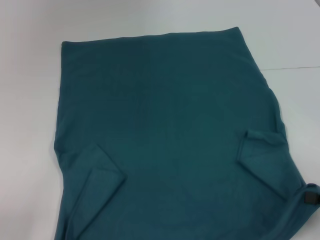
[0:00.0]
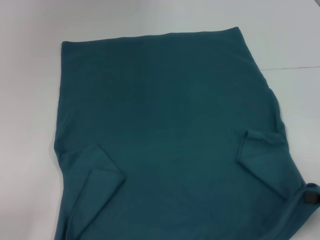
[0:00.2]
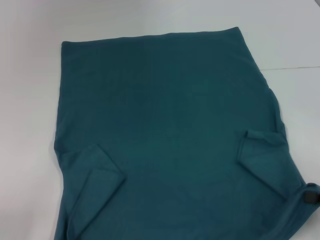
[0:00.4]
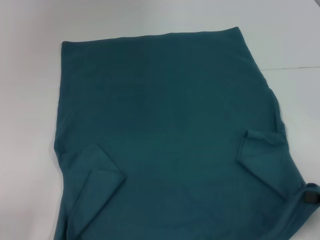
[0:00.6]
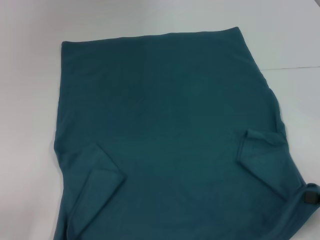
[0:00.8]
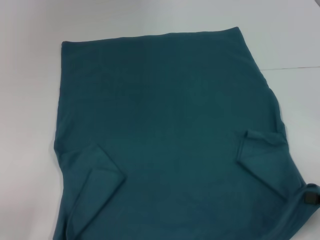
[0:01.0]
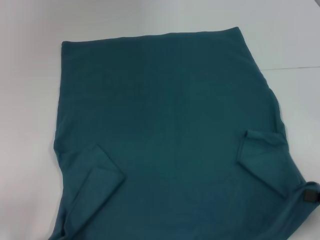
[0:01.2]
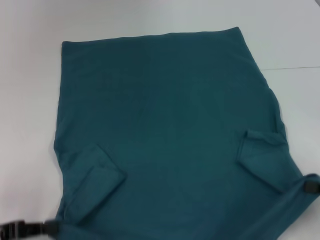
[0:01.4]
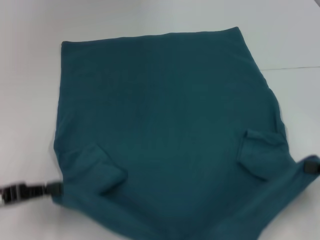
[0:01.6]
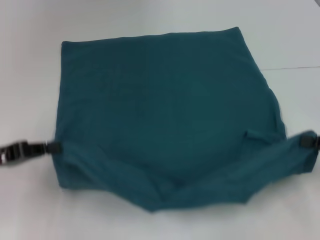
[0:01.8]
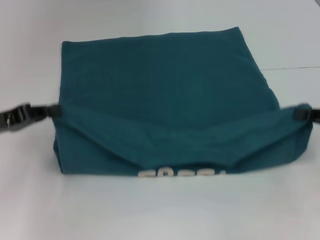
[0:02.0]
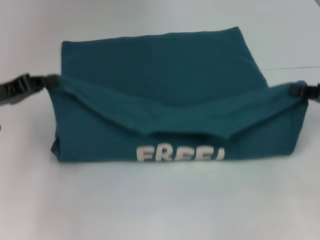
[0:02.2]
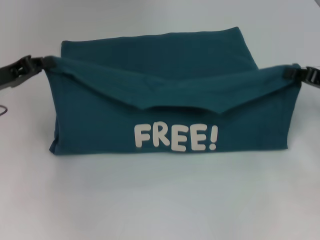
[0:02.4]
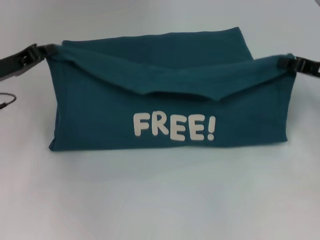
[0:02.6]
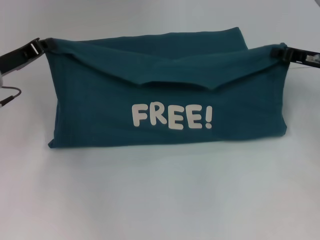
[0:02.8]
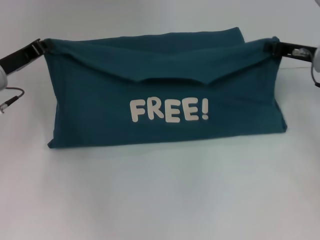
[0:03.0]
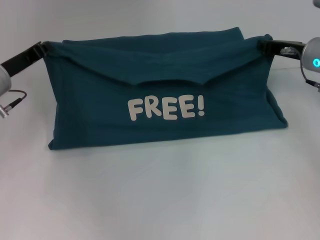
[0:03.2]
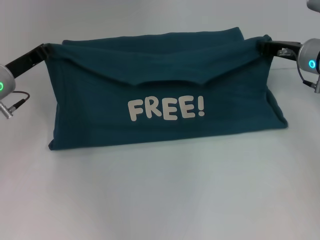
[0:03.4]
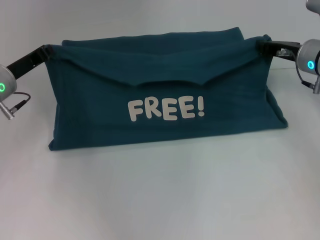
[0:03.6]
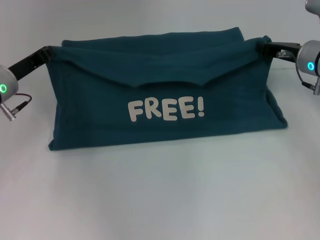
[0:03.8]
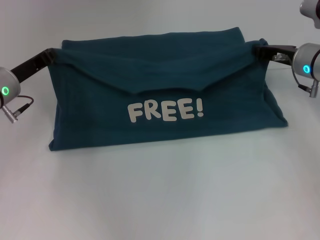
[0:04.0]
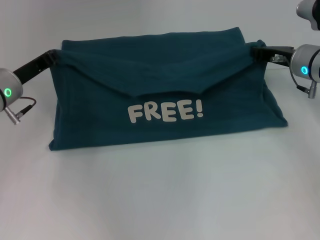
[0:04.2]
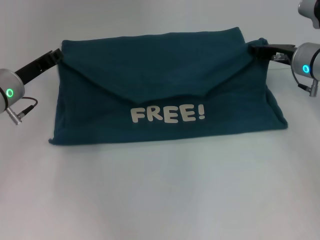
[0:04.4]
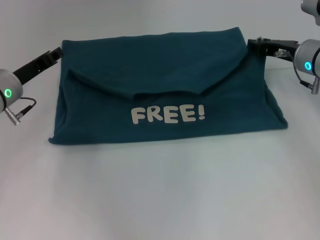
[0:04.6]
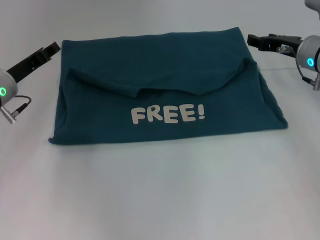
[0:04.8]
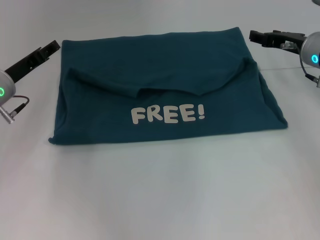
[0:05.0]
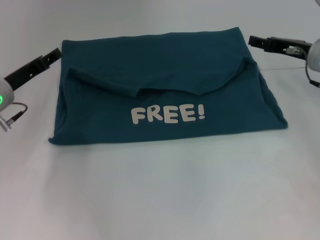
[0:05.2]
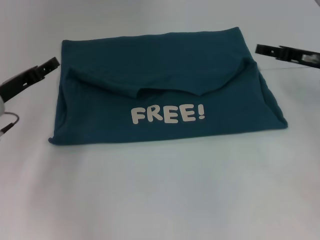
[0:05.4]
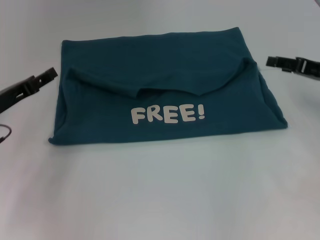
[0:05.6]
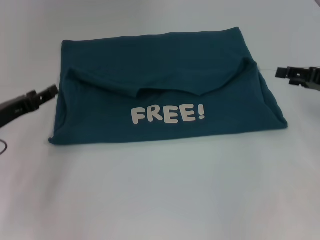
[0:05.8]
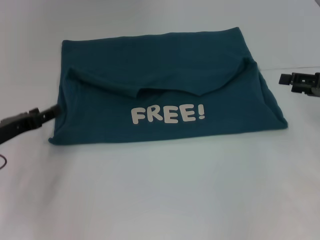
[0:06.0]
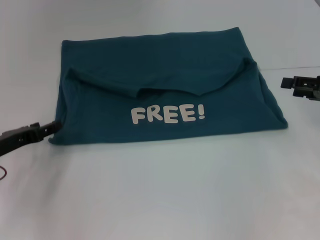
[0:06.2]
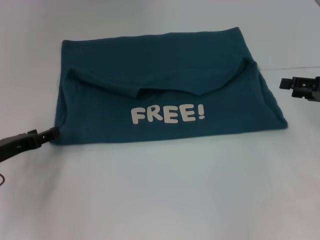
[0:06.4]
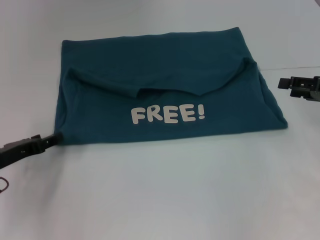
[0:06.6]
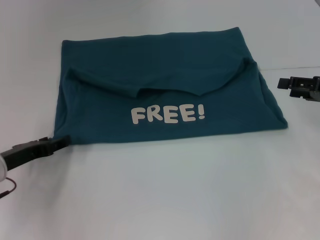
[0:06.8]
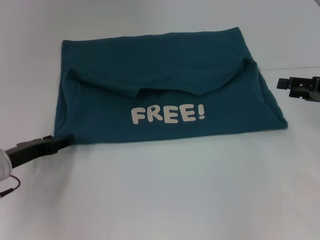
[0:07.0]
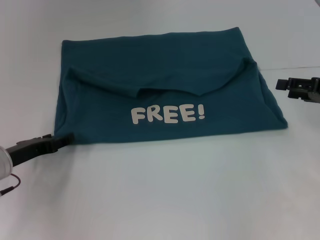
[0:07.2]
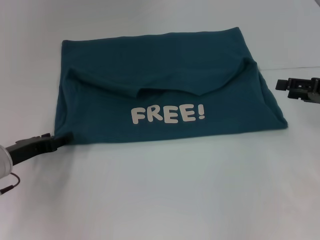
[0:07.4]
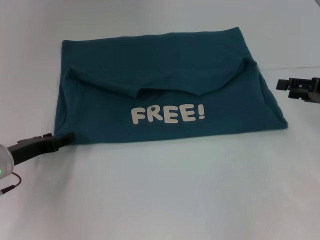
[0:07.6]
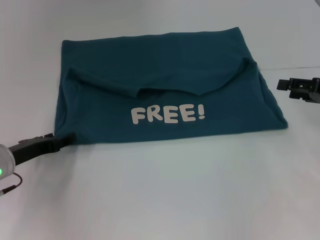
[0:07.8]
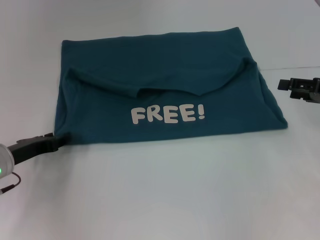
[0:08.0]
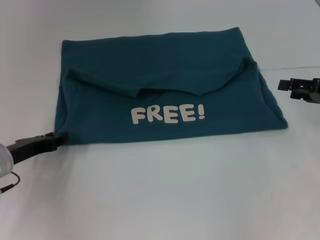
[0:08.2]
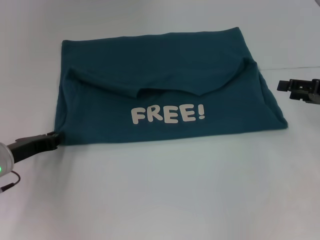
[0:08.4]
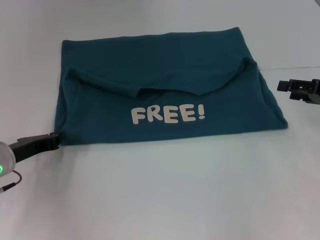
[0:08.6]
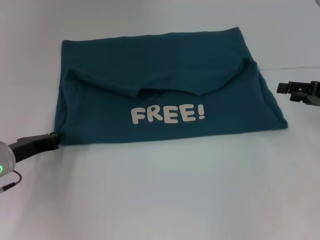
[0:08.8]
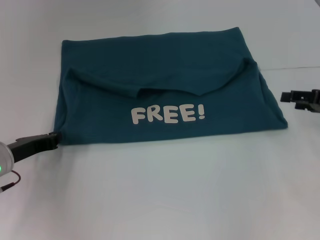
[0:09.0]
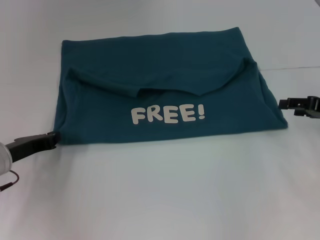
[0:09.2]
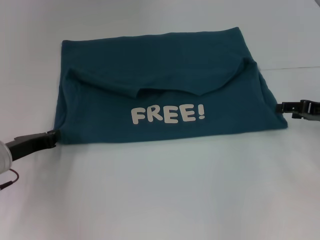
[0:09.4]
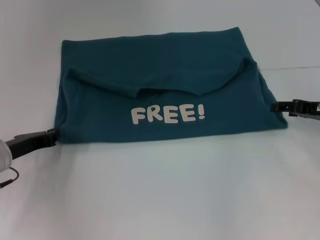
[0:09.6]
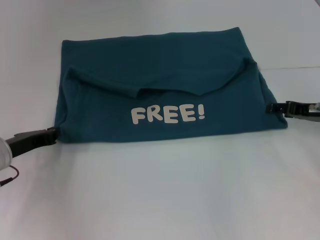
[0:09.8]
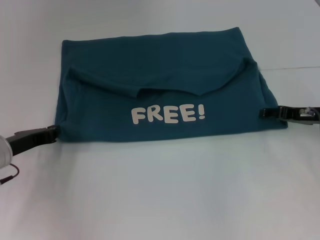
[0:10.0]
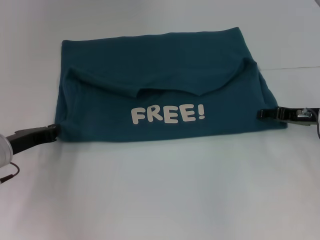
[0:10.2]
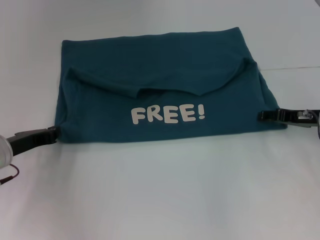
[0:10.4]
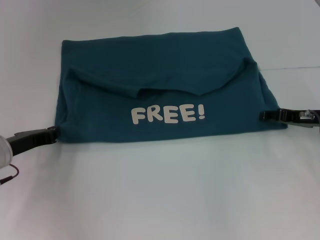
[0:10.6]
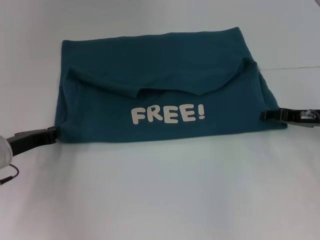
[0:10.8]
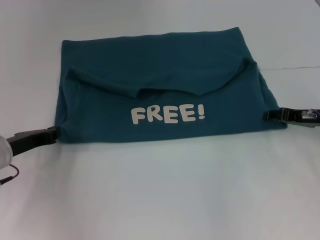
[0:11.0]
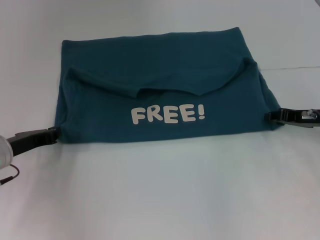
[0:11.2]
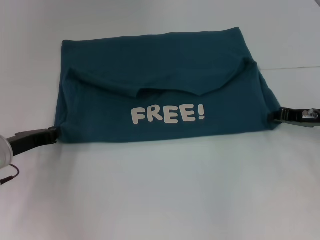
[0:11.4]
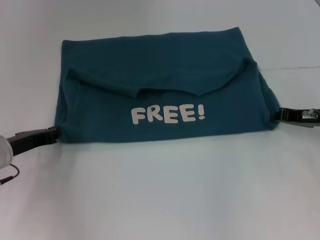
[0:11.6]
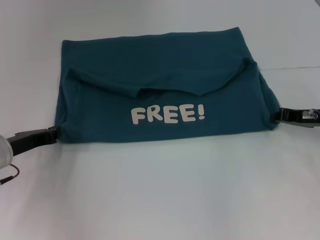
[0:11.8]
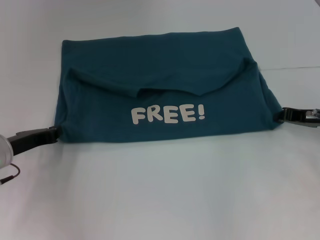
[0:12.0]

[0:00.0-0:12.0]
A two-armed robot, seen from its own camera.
Step, 0:00.0 to 0:05.0: Fold the clothes to the left.
Step, 0:00.0 to 0:05.0: Fold the clothes to the right.
0:00.0 to 0:01.6: The left gripper moves forward, roughly 5 cm, and closes up.
0:01.6 to 0:03.0: The left gripper heads forward, covering approximately 15 cm. The right gripper shifts roughly 20 cm forward and to the left.
0:03.0 to 0:04.4: The grippers move only a little.
0:04.4 to 0:06.0: The left gripper is displaced backward and to the left by approximately 10 cm, and opens its fingers; the right gripper goes some 15 cm to the right and backward, and opens up.
0:06.0 to 0:07.6: There are only small adjustments of the grippers.
0:07.6 to 0:09.0: The left gripper closes.
0:09.0 to 0:10.4: The right gripper moves to the left, about 5 cm.
0:10.4 to 0:12.0: The right gripper closes.

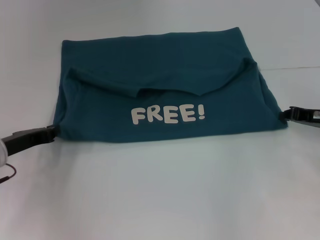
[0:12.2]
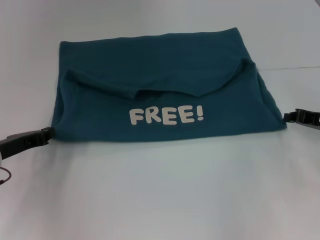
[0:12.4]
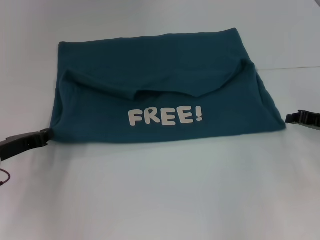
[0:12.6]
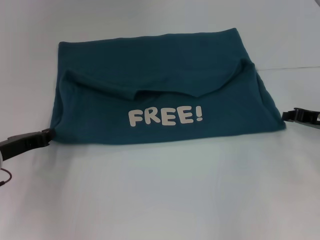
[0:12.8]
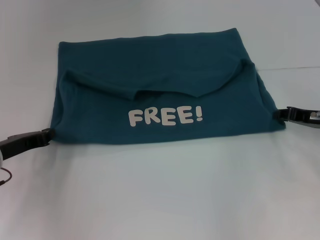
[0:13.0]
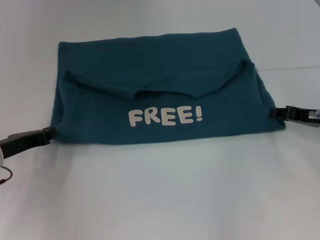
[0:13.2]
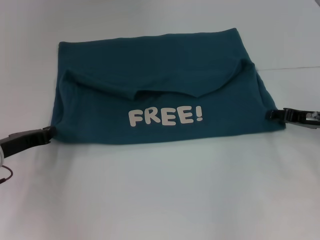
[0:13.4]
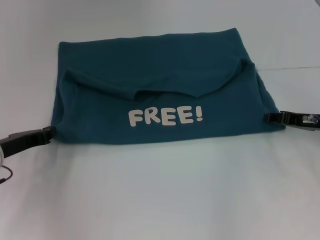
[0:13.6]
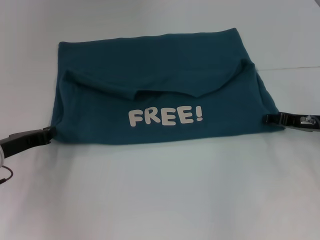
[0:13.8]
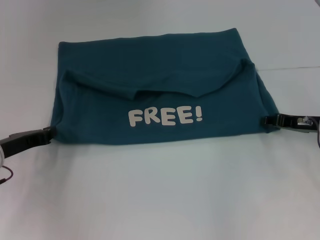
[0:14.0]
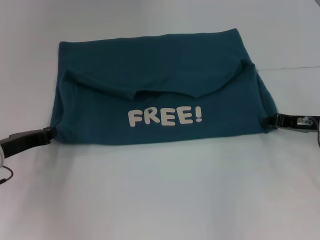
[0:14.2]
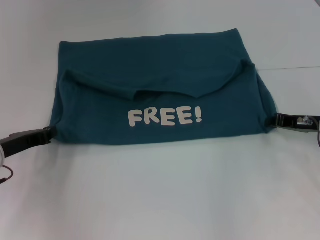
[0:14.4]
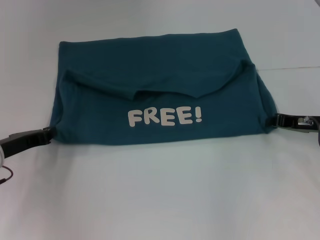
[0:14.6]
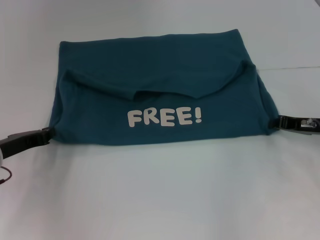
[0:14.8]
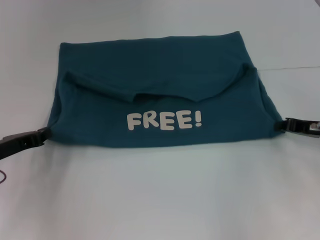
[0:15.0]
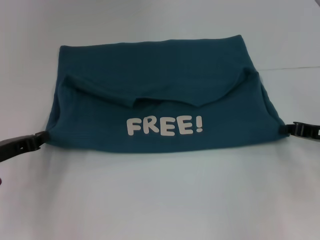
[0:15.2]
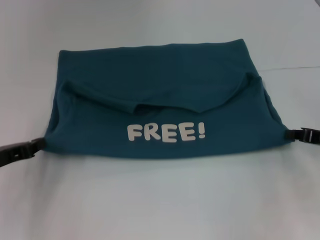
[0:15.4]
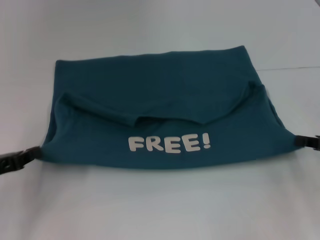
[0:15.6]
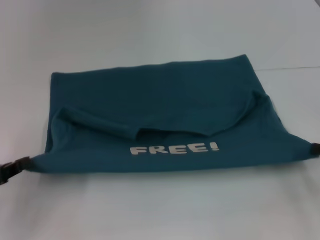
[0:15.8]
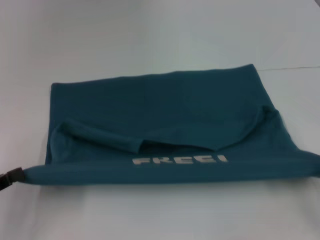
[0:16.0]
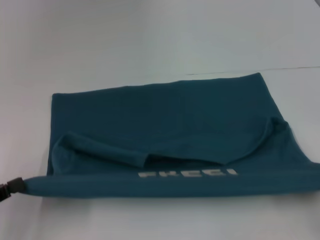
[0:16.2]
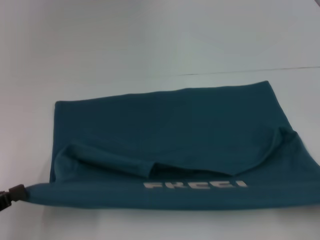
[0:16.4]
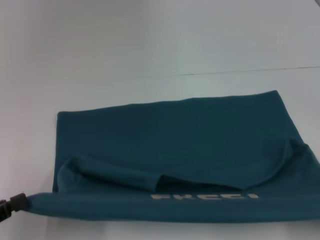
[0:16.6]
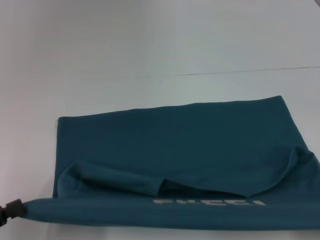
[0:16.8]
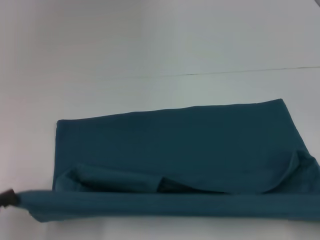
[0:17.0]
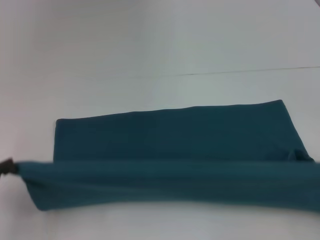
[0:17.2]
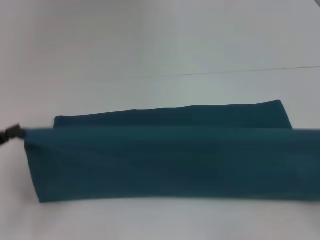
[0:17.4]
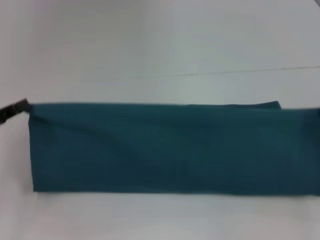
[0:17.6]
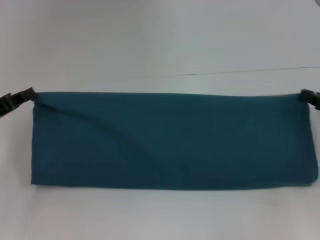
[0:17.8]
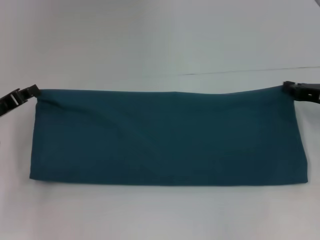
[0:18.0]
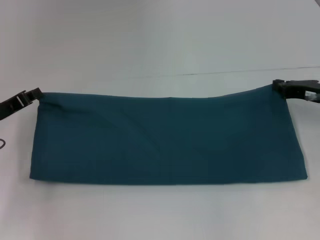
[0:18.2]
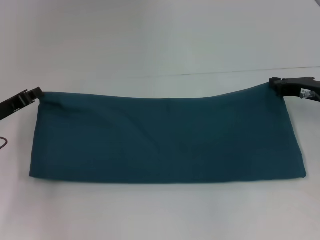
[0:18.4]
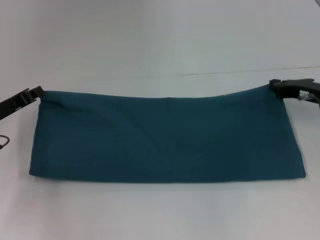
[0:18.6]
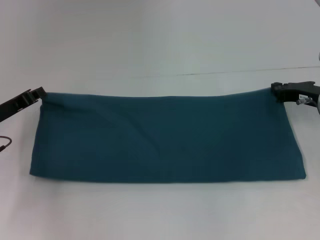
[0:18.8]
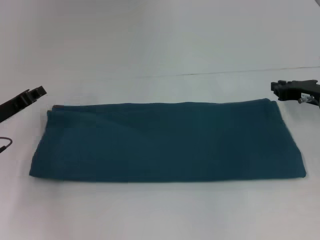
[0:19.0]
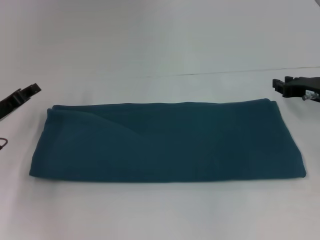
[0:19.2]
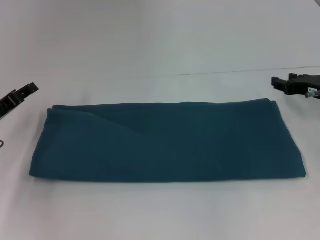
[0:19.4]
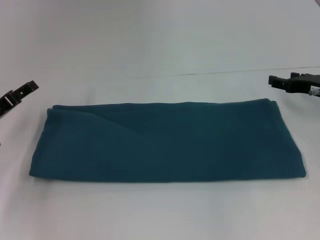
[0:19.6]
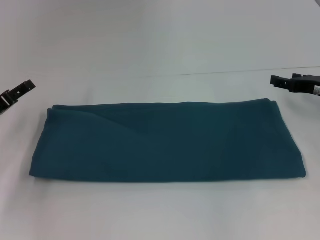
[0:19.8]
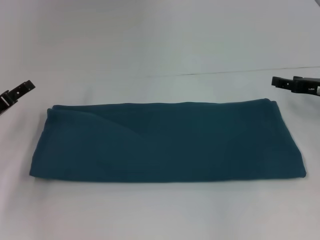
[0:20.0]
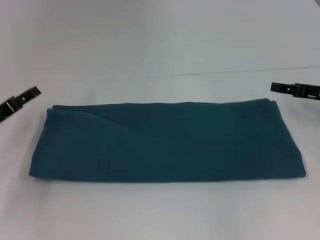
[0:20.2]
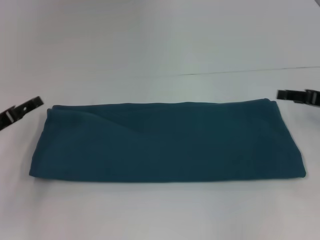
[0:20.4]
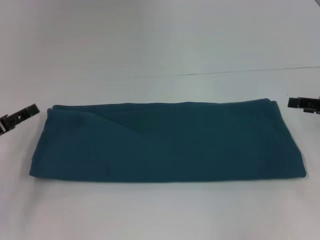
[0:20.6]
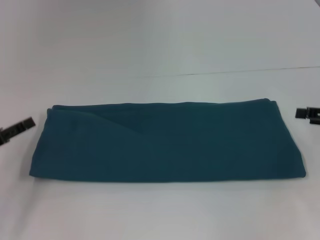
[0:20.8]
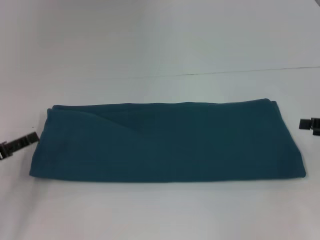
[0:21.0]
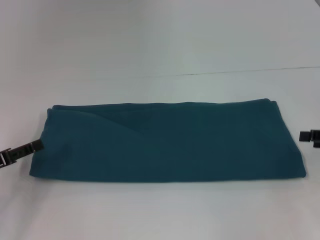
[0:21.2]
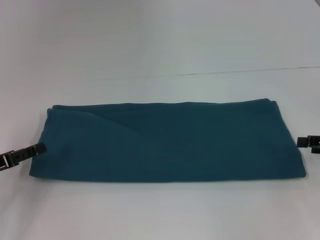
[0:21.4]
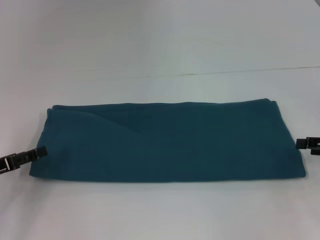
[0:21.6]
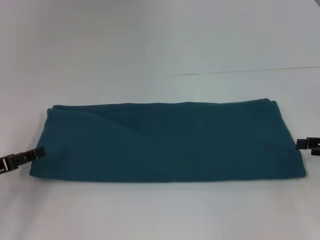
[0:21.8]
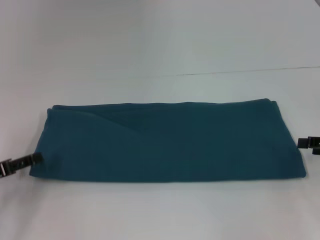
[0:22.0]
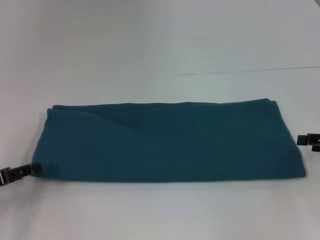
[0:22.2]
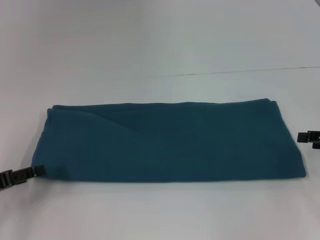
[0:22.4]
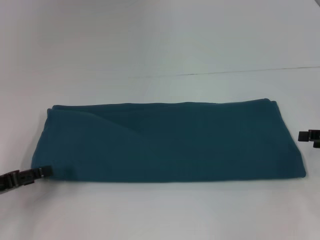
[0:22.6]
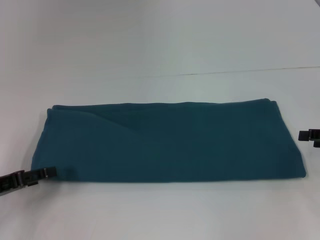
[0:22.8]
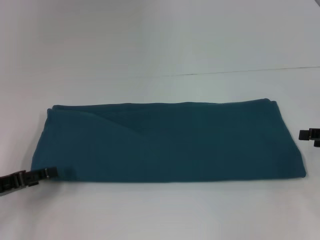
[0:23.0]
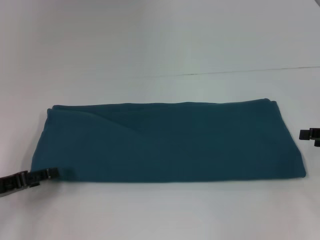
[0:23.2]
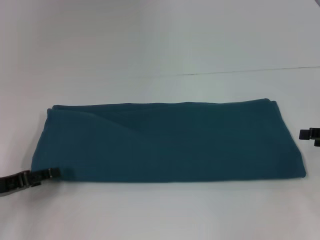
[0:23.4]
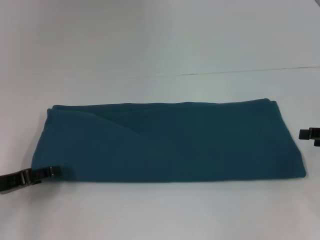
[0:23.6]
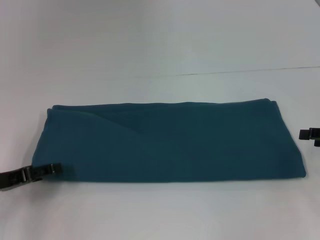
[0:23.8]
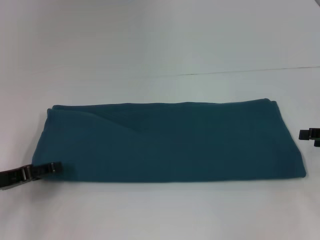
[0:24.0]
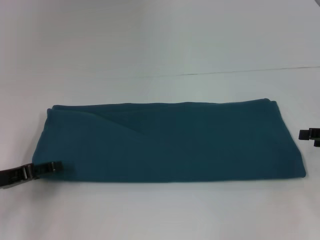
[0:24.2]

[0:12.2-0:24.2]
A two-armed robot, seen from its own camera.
Step, 0:12.2 to 0:15.6: Pull the clothes with your left hand.
Step, 0:12.2 to 0:15.6: Pull the clothes with your right hand.
Step, 0:15.8 to 0:19.2: Fold the clothes to the left.
Step, 0:15.8 to 0:19.2: Fold the clothes to the right.
0:12.2 to 0:13.8: The right gripper opens.
0:13.8 to 0:15.2: The right gripper closes.
0:15.2 to 0:16.6: The left gripper goes approximately 15 cm backward. The right gripper travels backward and to the right by some 25 cm.
0:16.6 to 0:18.2: The right gripper travels forward and to the left by some 30 cm. The left gripper travels forward by roughly 20 cm.
0:18.2 to 0:19.8: The right gripper opens its fingers. Meanwhile the left gripper opens.
0:19.8 to 0:21.2: The left gripper moves backward, about 5 cm. The right gripper shifts about 10 cm backward and to the right.
0:21.2 to 0:22.6: The grippers stay close to where they were, moving slightly.
